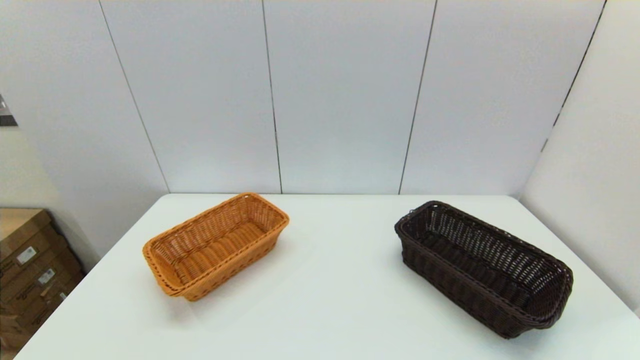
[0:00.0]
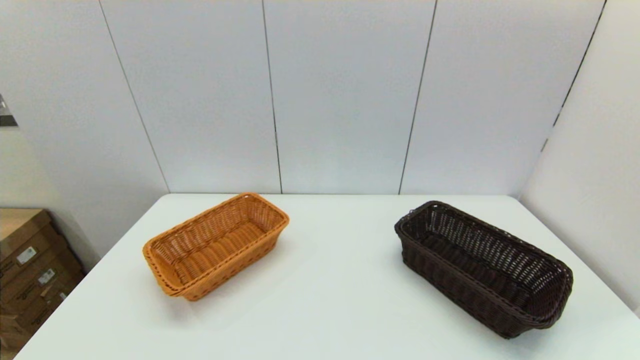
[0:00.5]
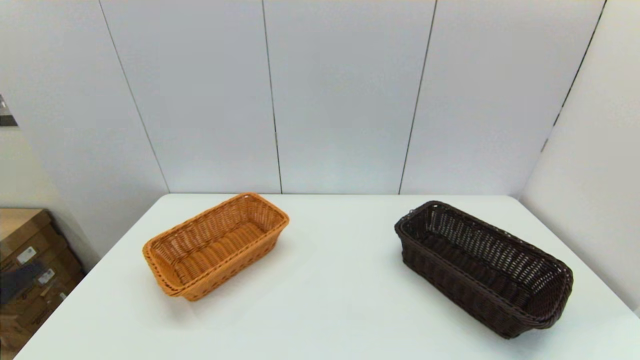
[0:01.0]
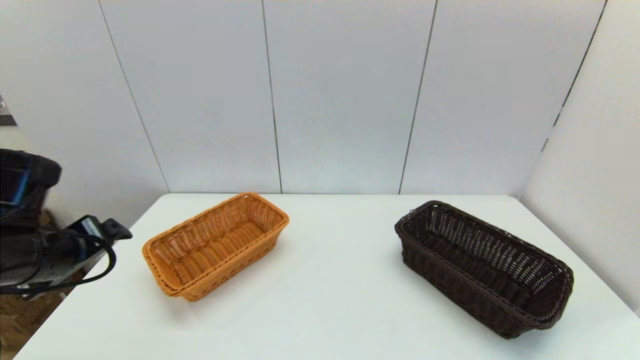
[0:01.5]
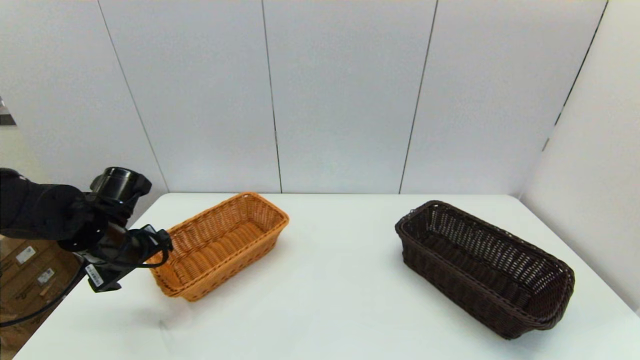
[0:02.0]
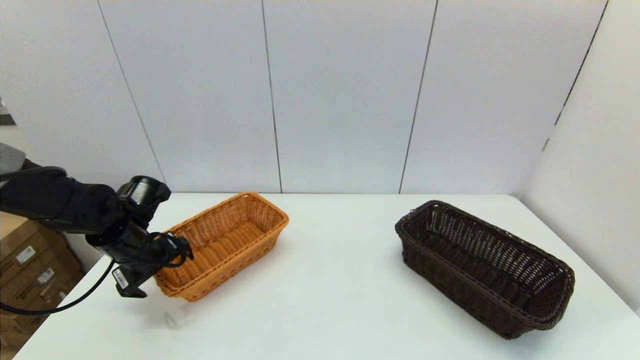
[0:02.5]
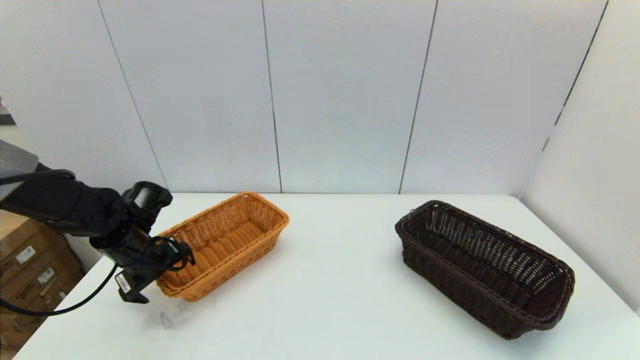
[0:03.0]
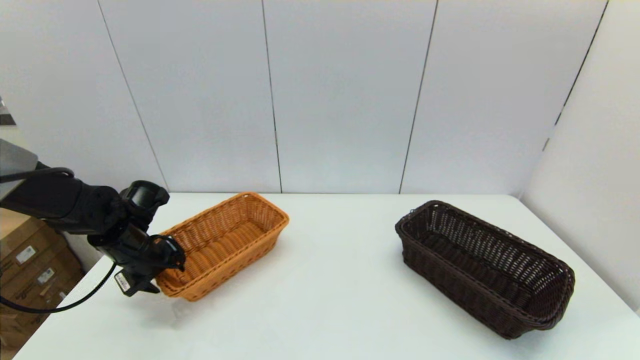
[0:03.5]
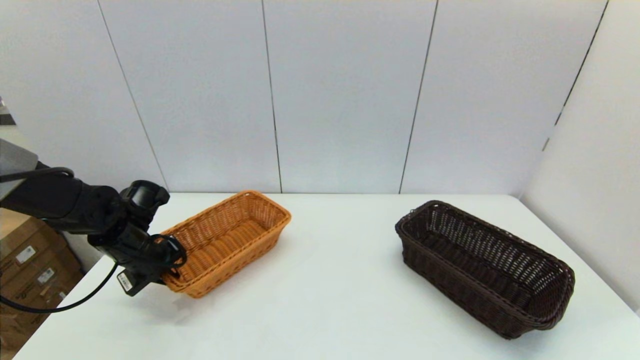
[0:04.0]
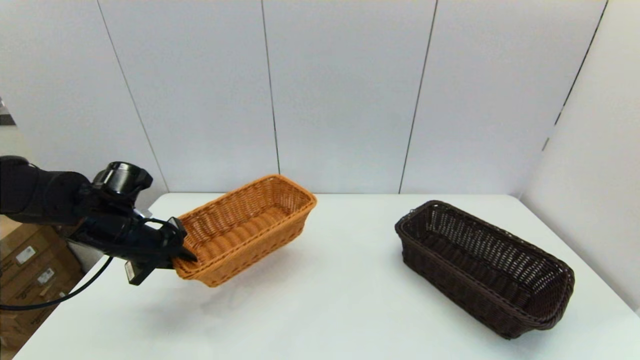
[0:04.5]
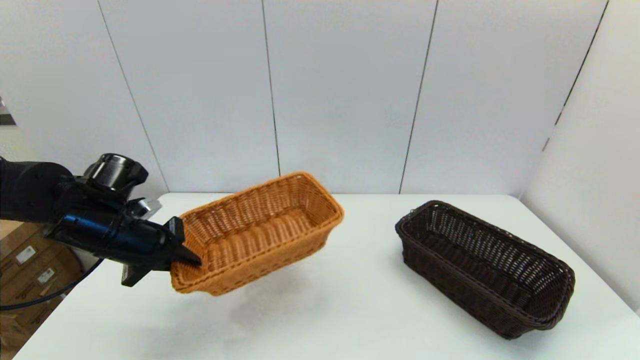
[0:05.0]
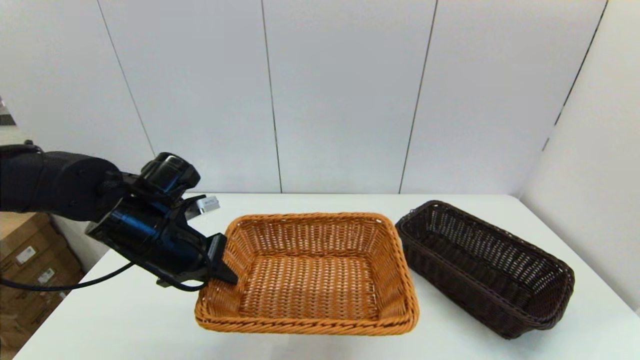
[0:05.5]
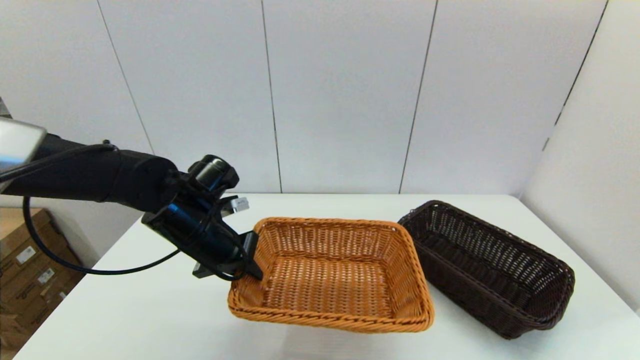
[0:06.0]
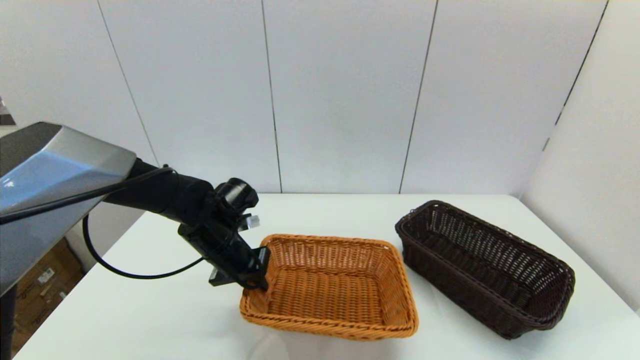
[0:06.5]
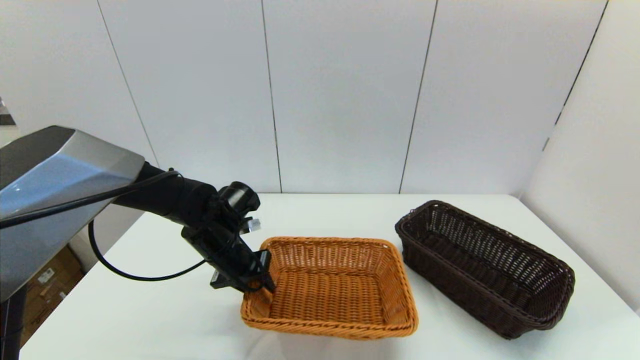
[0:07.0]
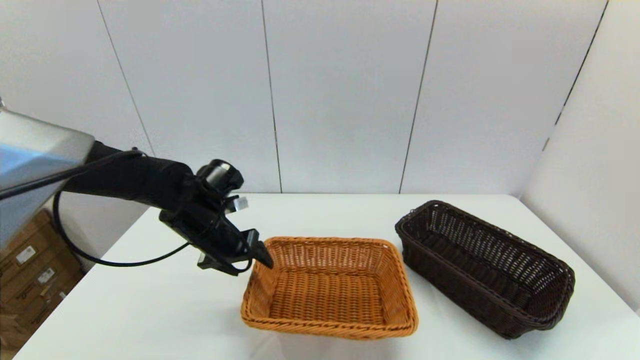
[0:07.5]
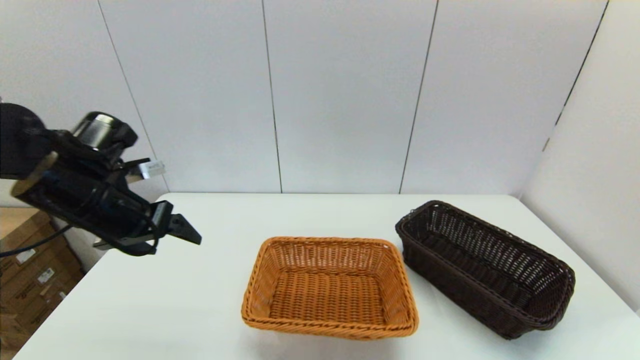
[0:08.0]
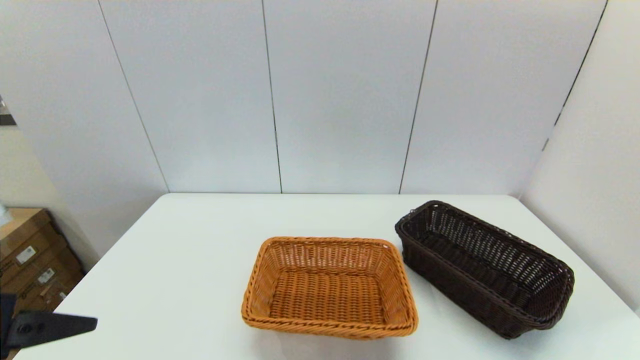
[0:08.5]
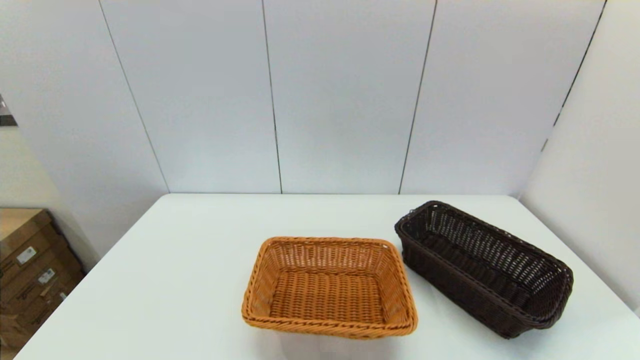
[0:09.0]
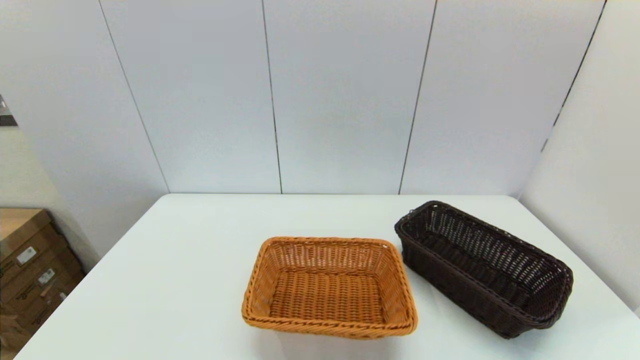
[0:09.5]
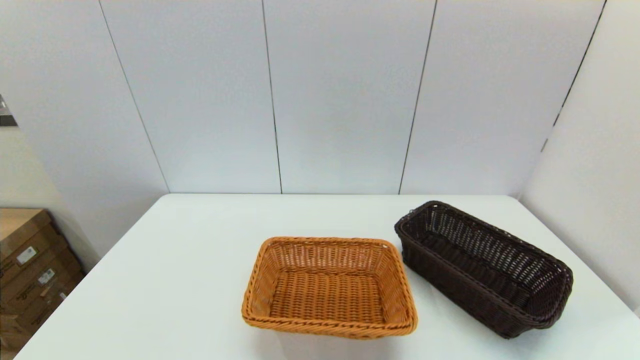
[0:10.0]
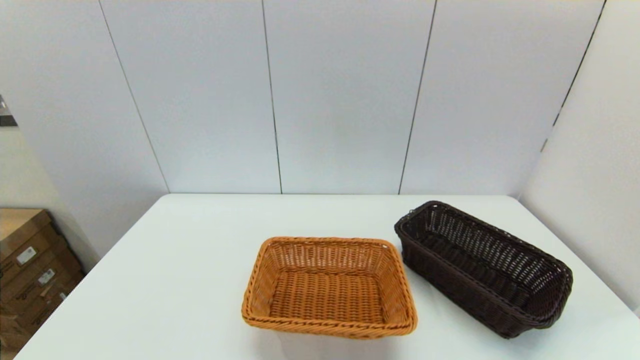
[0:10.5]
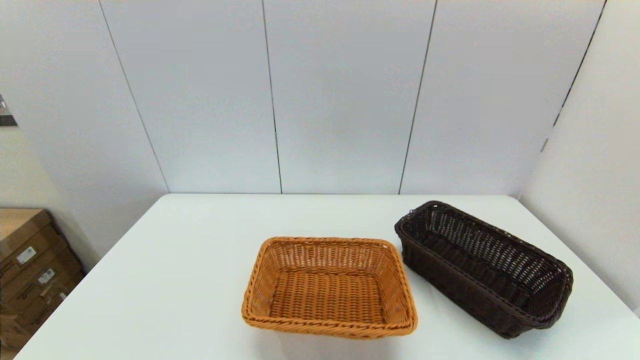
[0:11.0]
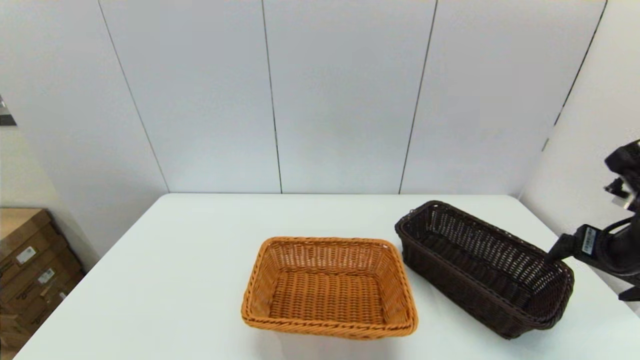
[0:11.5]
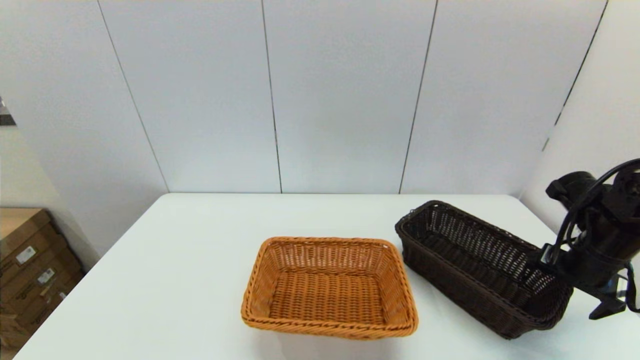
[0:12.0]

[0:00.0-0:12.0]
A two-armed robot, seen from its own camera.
Task of the whole recording: stack a basket on top of another basket.
Step, 0:00.0 to 0:03.5: Grasp the light basket with the left gripper.
Step, 0:04.0 to 0:07.5: Place the light basket on the middle of the table with the left gripper.
0:00.0 to 0:02.0: The left gripper shifts roughly 30 cm forward.
0:02.0 to 0:04.0: The left gripper ends up roughly 5 cm from where it was, and closes its fingers.
0:04.0 to 0:06.0: The left gripper is displaced to the right and upward by roughly 15 cm.
0:06.0 to 0:08.0: The left gripper goes approximately 10 cm to the left and upward, and opens up.
0:08.0 to 0:10.0: The left gripper goes about 30 cm backward.
0:10.0 to 0:12.0: The right gripper shifts about 30 cm forward.

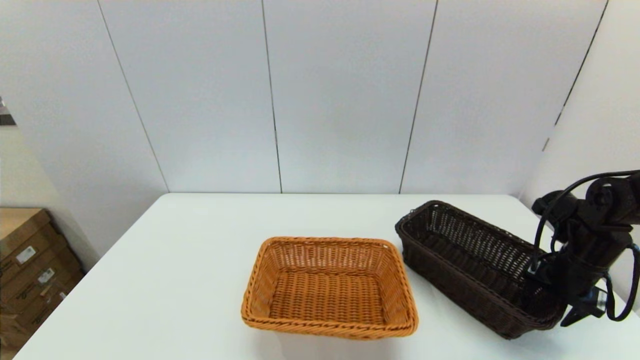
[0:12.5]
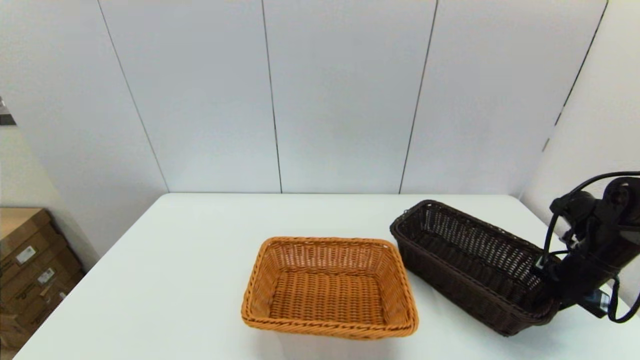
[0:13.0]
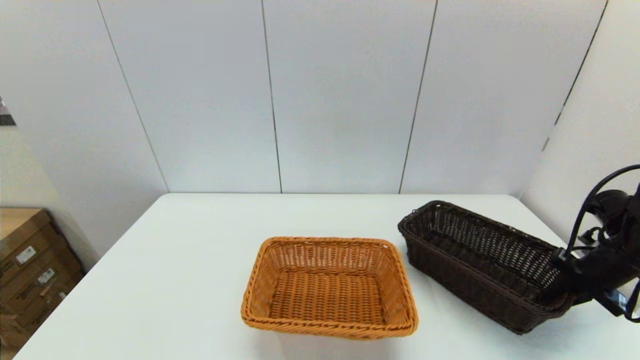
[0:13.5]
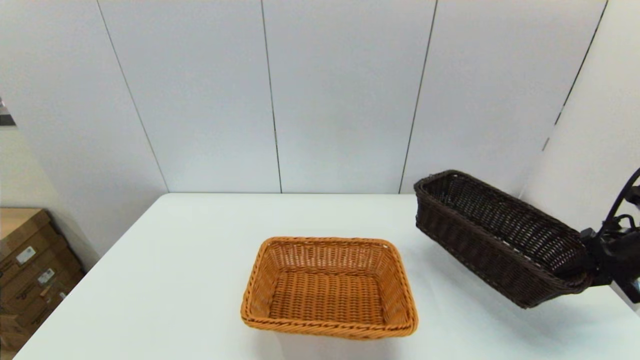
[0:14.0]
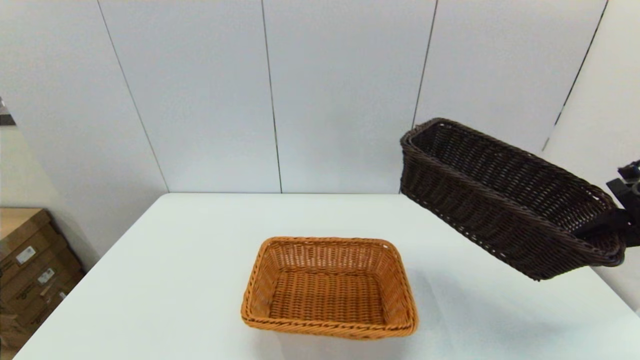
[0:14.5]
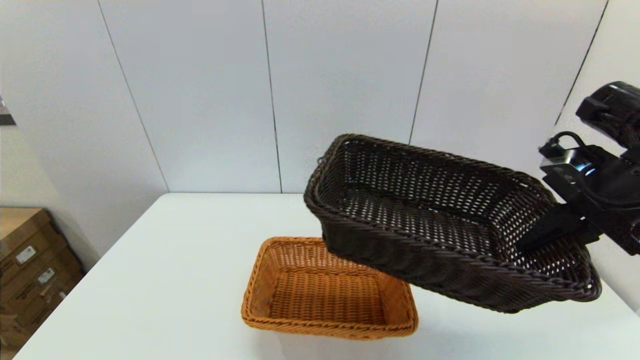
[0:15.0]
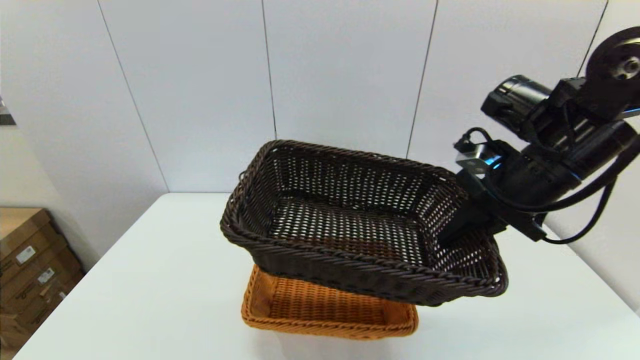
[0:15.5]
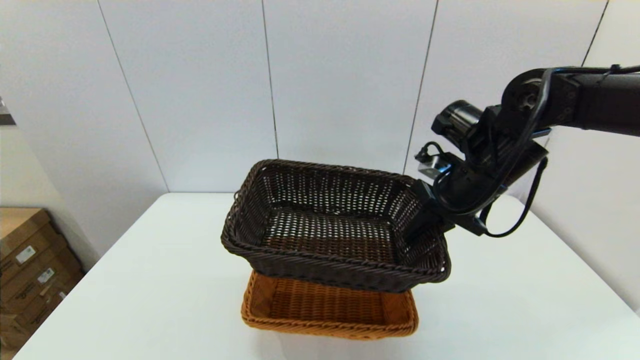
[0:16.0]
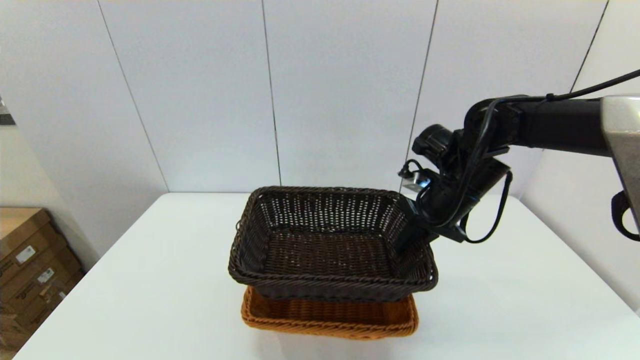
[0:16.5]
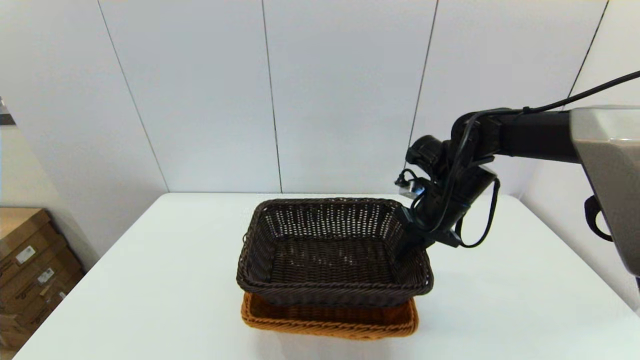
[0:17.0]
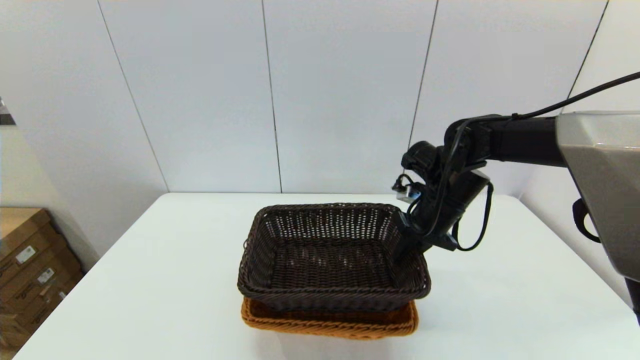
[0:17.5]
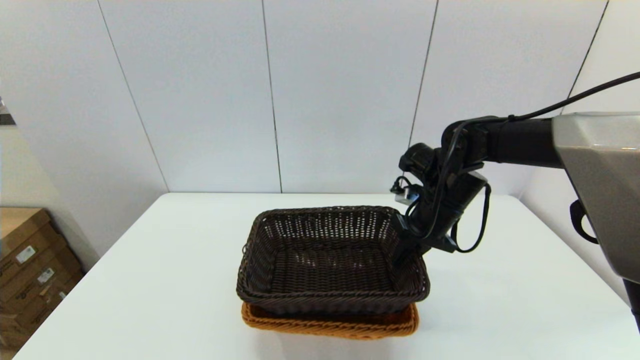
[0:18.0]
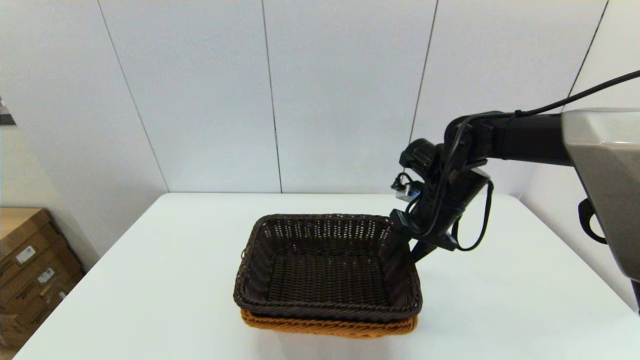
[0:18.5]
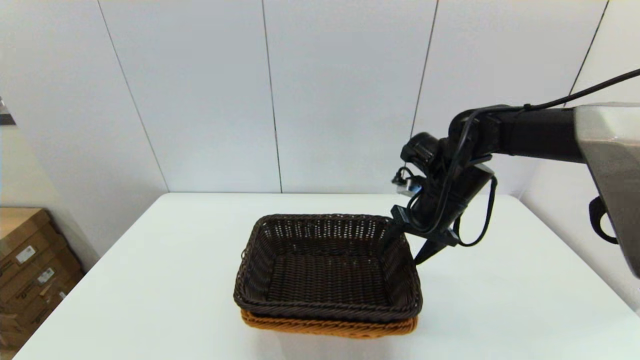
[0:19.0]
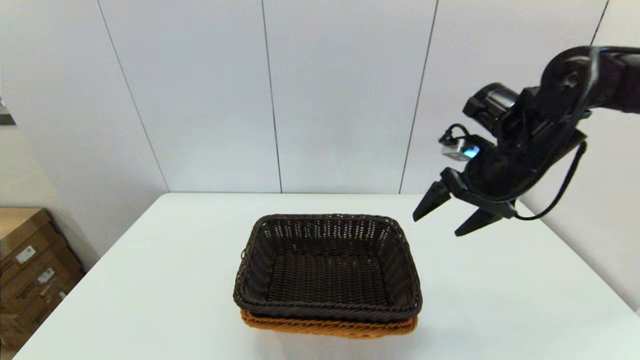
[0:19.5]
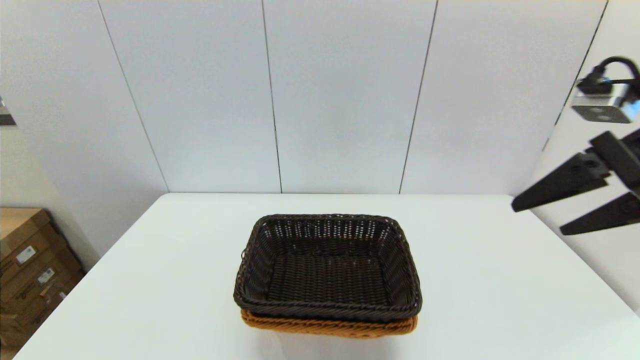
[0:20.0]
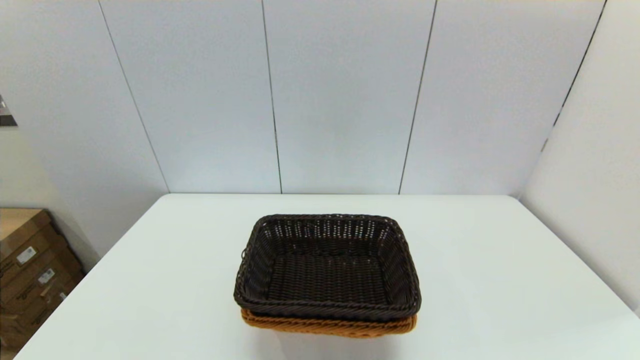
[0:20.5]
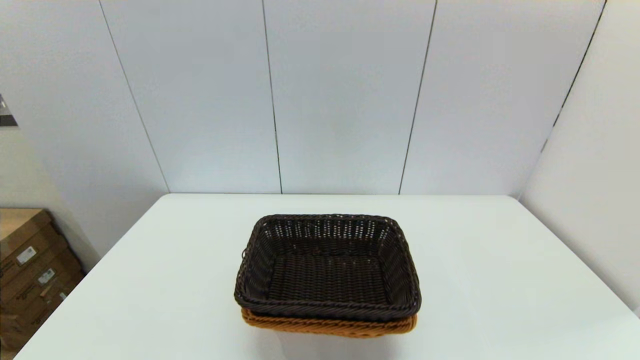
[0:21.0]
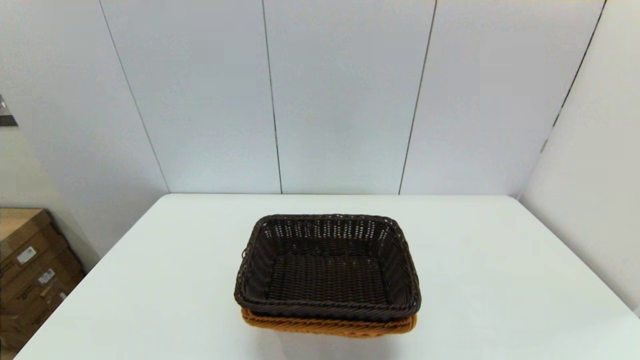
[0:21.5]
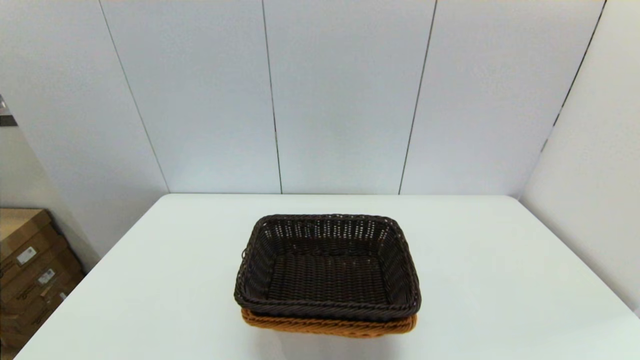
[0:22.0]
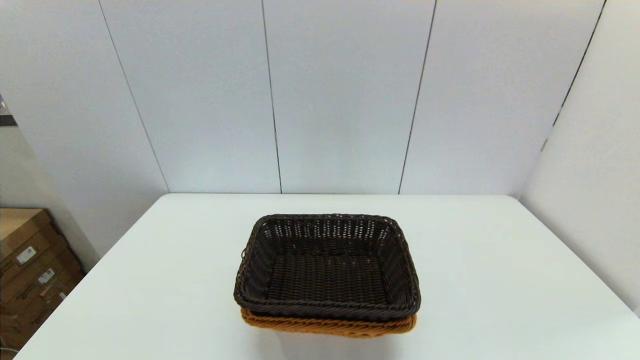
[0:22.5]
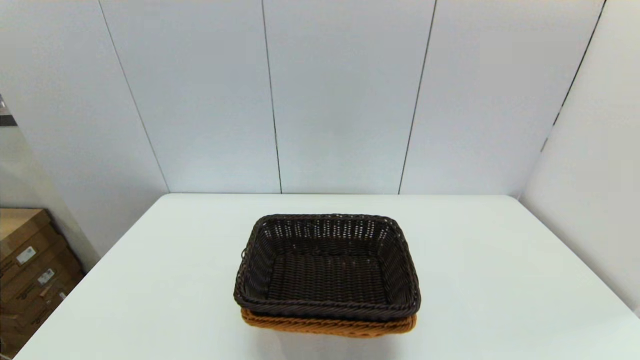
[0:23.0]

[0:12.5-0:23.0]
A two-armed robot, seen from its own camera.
Task of the whole recording: stack a basket on top of another basket.
Step, 0:13.5 to 0:19.0: Place the dark basket into the light color basket with the right gripper.
0:12.5 to 0:14.5: The right gripper is displaced upward by about 15 cm, and closes.
0:14.5 to 0:16.5: The right gripper is displaced to the left and forward by approximately 25 cm.
0:16.5 to 0:19.0: The right gripper opens its fingers.
0:19.0 to 0:21.0: The right gripper moves backward, about 50 cm.
